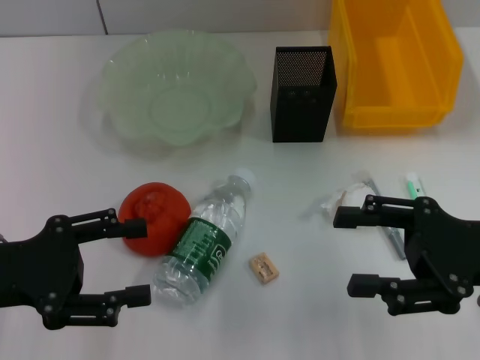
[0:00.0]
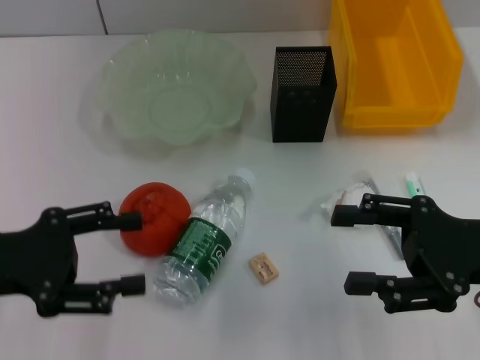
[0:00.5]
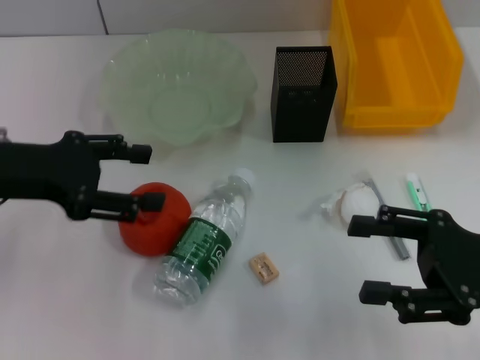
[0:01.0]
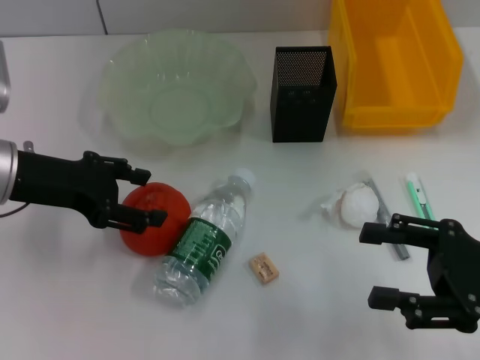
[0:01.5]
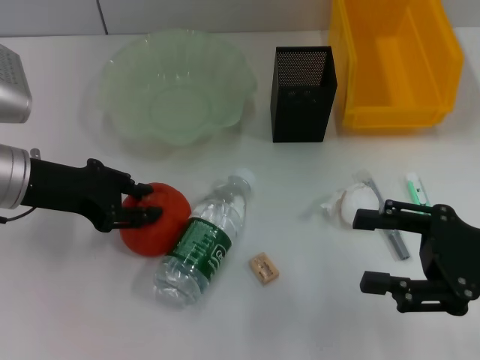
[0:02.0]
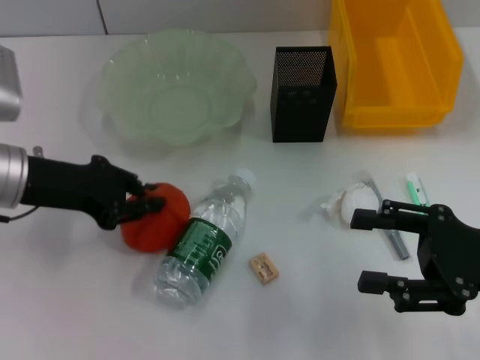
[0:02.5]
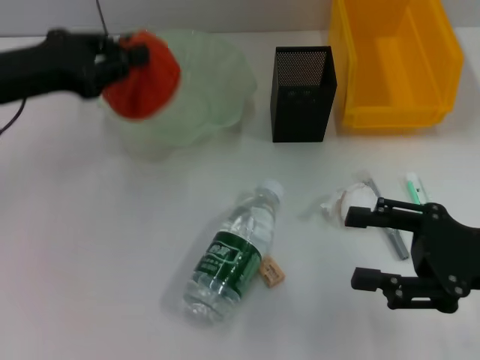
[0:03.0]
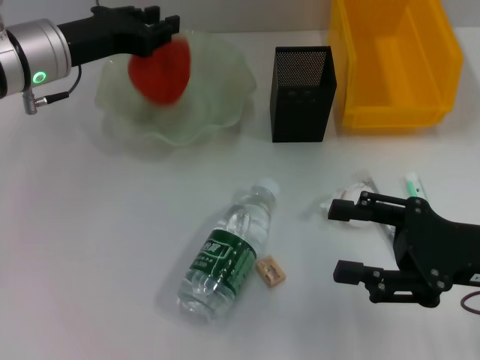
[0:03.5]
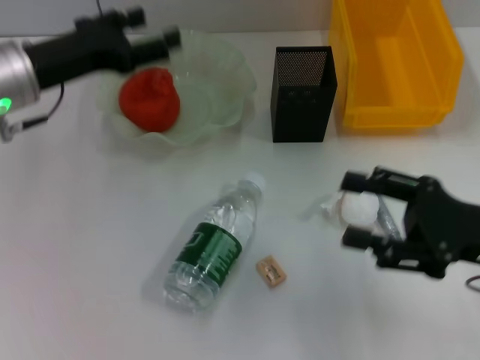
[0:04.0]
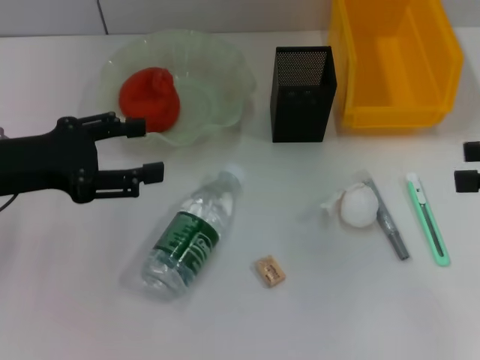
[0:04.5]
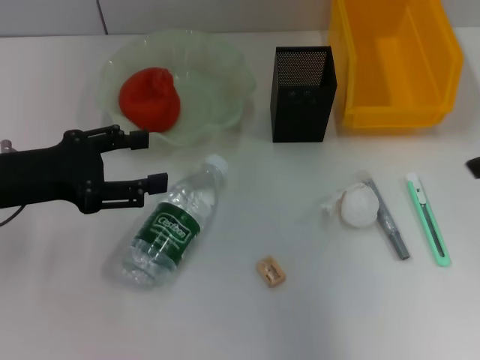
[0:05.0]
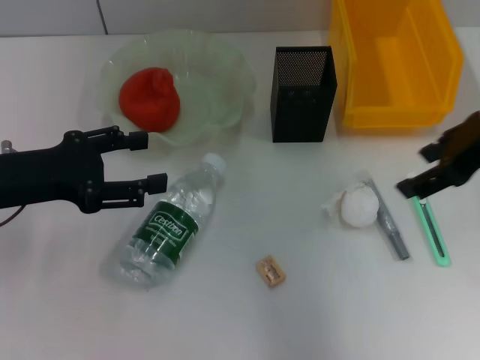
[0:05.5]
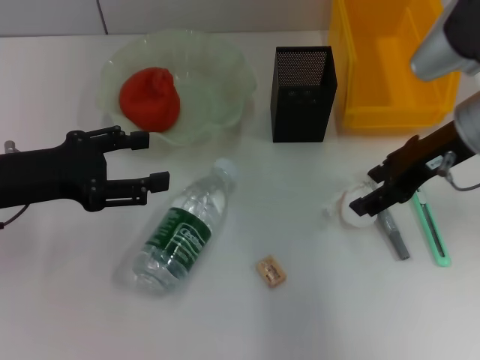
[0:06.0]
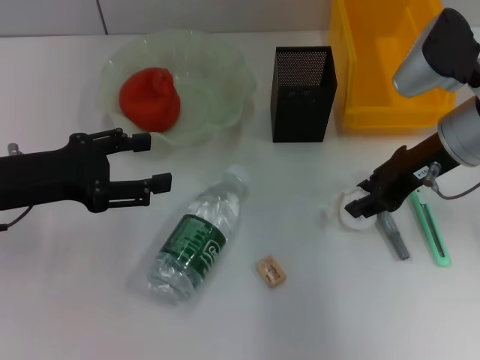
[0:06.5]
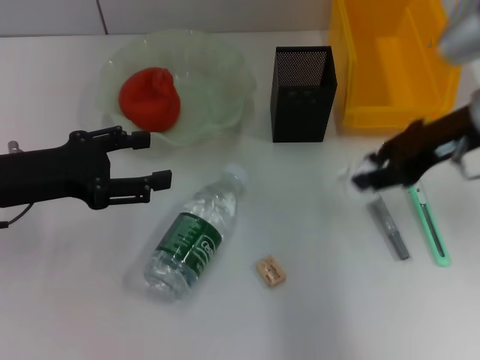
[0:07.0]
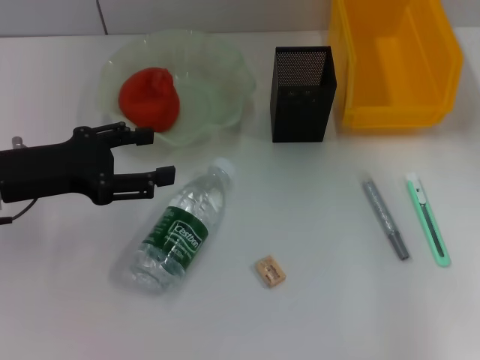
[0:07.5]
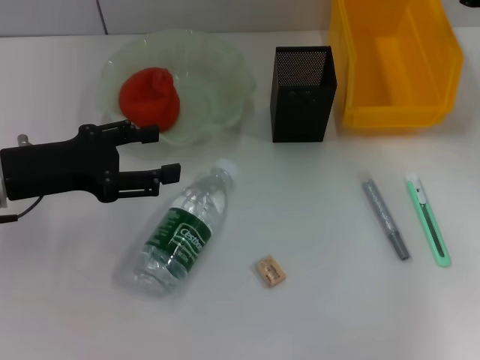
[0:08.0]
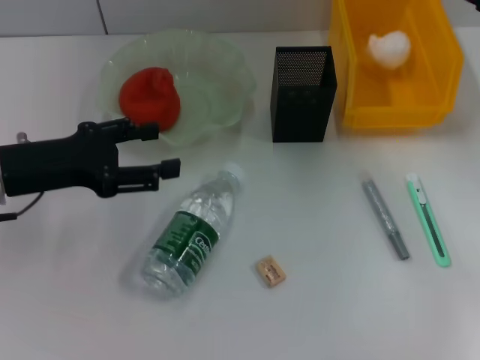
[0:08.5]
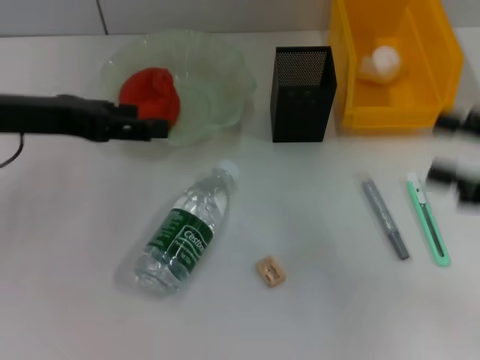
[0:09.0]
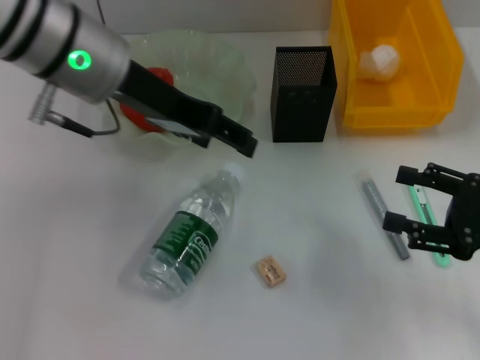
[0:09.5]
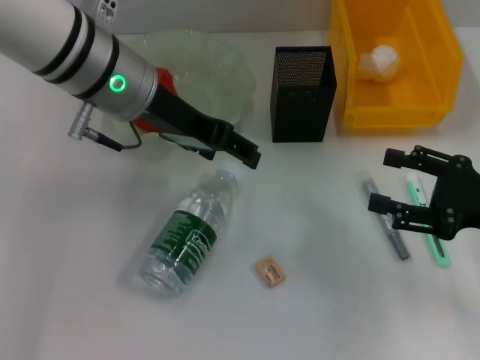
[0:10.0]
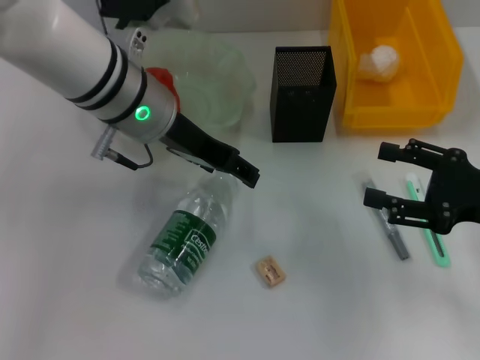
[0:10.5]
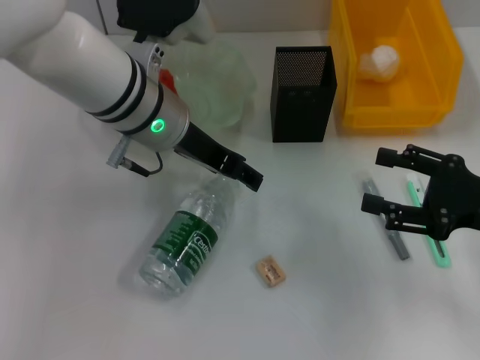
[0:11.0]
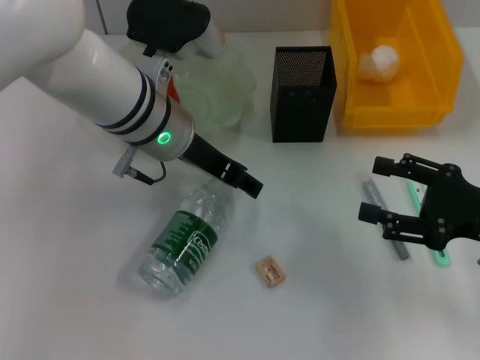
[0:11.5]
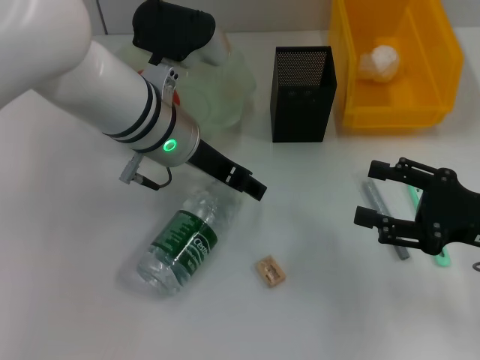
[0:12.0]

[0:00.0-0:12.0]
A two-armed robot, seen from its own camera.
Step, 0.0 to 2.0 s: Grab the orange with the left hand.
Step, 2.5 to 3.5 s: Place the orange into the fruit bowl with the left hand.
Step, 4.0 to 6.5 s: Grab the paper ball with the right hand.
Step, 7.0 to 9.0 s: Place the paper ball into the trash can with the right hand.
0.0 to 2.0 s: The left gripper heads forward, covering about 10 cm, and closes its fingers.
2.0 to 4.0 s: The left gripper closes and opens again.
4.0 to 6.0 s: The left gripper goes some 10 cm backward. Meanwhile the right gripper shifts about 15 cm forward, upward and to the left.
6.0 to 8.0 s: The right gripper goes roughly 10 cm to the right, and closes its fingers.
8.0 to 10.0 s: The right gripper travels backward and downward by some 15 cm, and opens up. Meanwhile the left gripper heads to the right, upward and forward, covering roughly 20 cm.
10.0 to 12.0 s: The left gripper is displaced downward by roughly 5 cm.

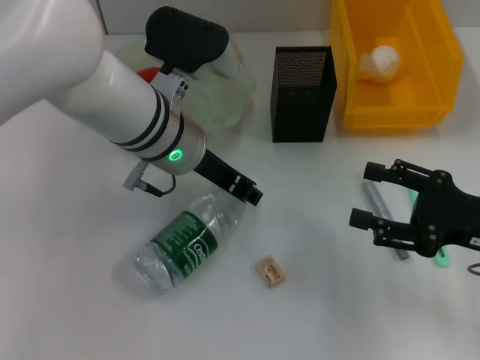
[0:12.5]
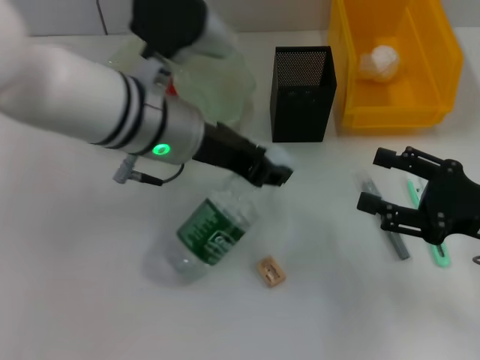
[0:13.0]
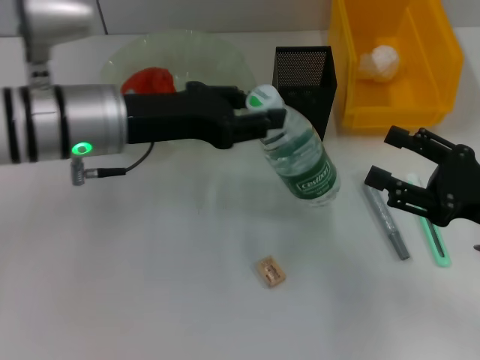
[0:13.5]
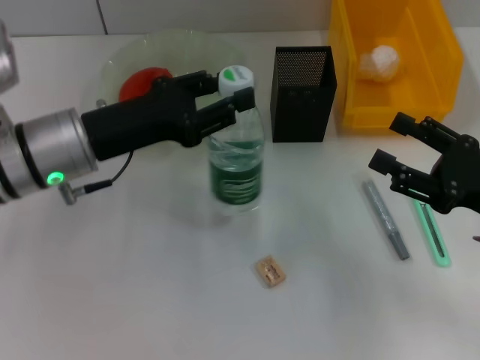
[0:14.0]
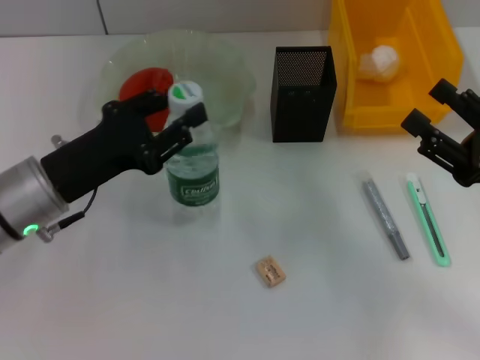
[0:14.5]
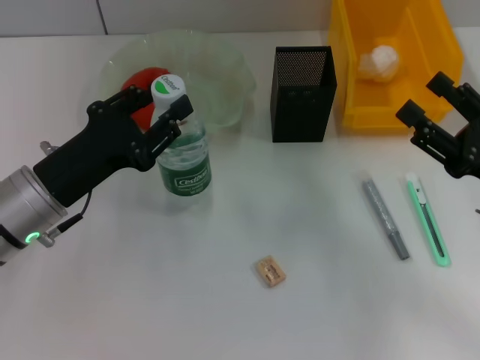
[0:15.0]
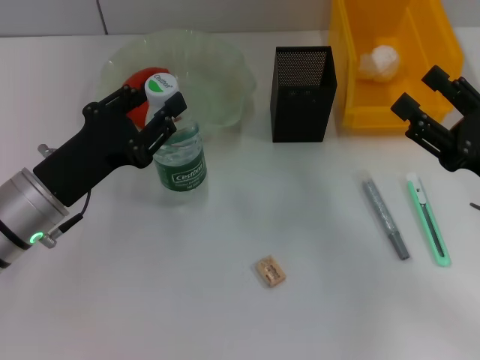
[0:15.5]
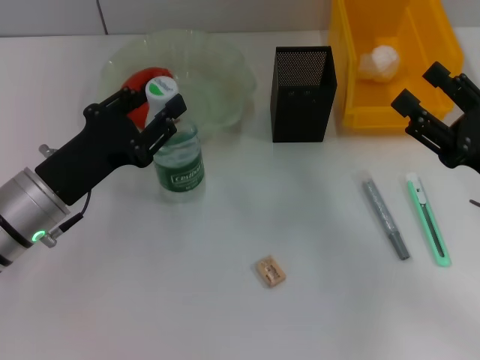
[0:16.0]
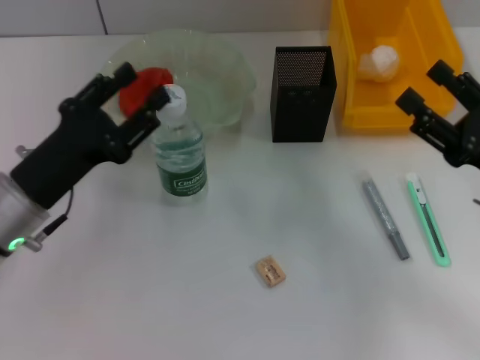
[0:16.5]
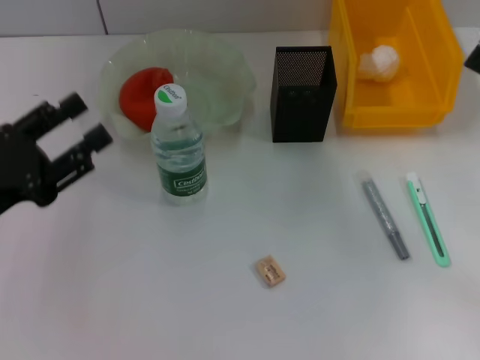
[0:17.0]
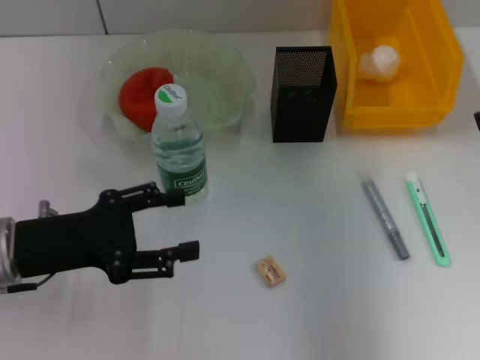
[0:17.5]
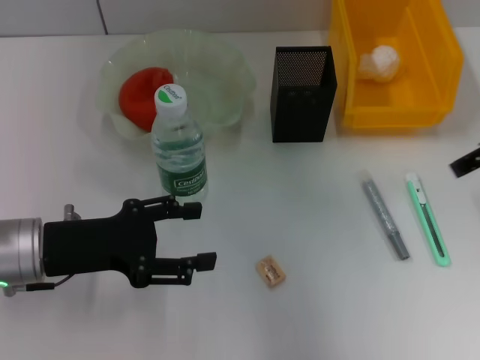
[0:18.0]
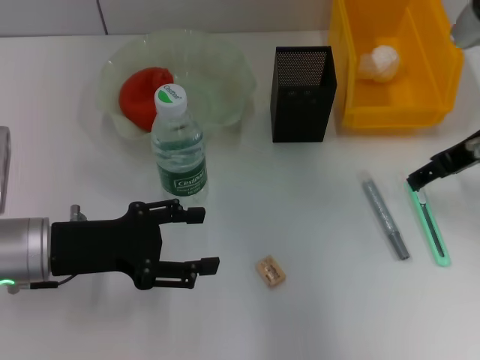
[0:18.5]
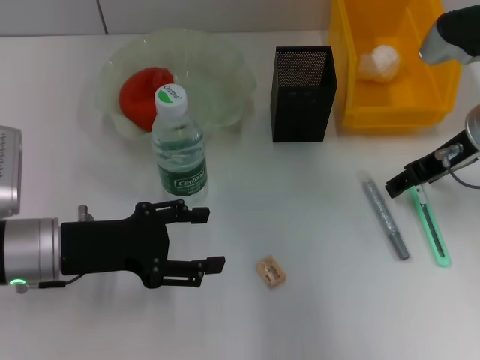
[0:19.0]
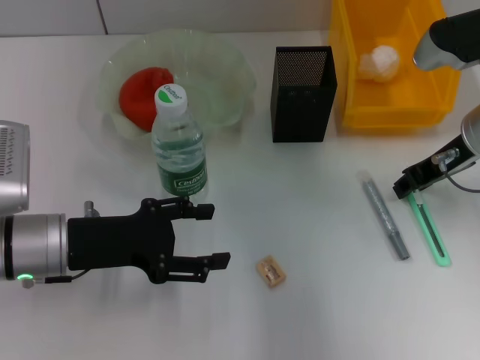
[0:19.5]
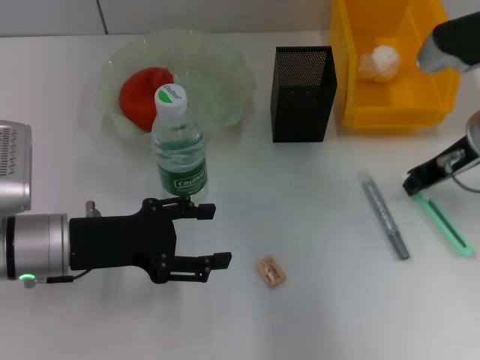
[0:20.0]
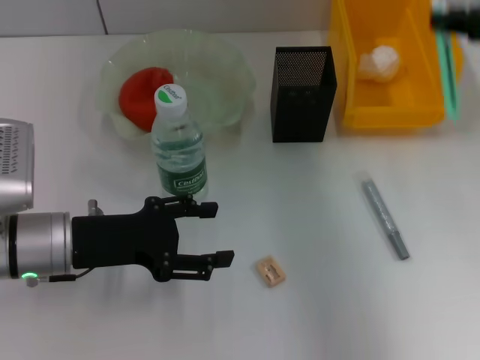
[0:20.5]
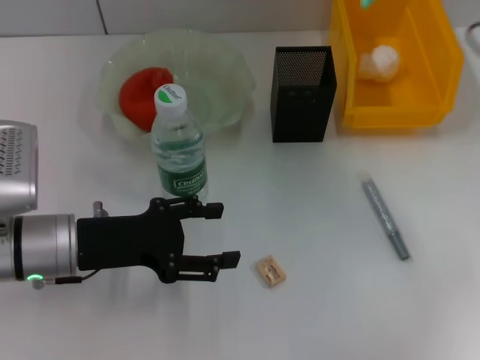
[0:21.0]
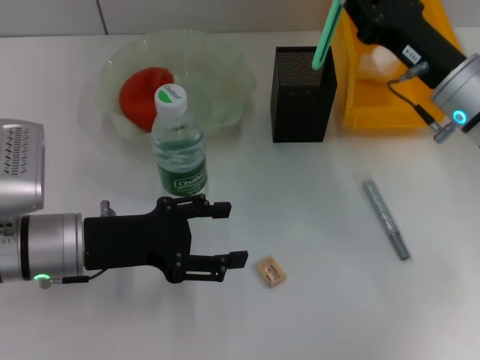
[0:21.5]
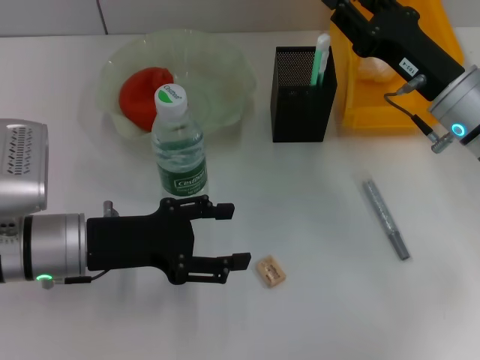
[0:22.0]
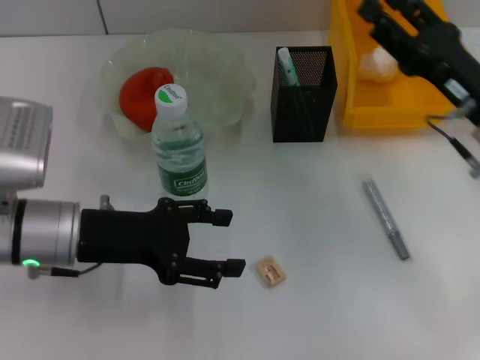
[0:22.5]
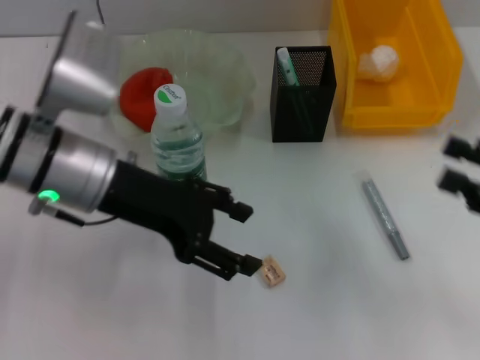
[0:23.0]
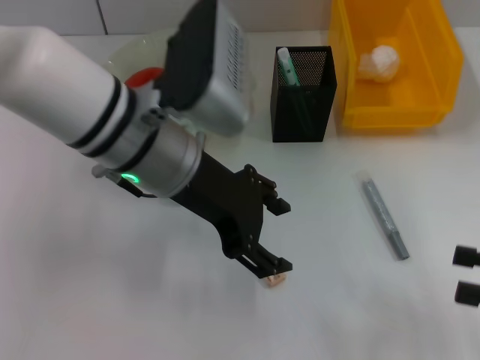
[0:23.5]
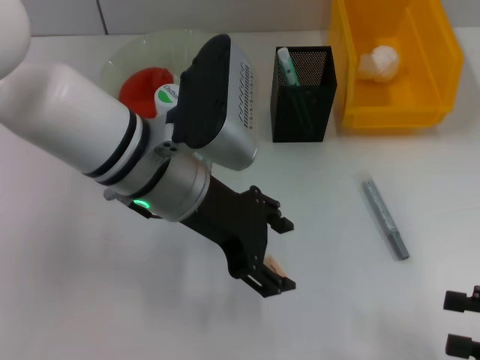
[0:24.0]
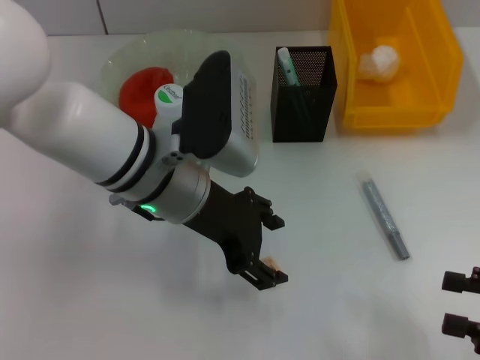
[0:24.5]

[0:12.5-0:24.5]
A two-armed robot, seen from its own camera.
Step, 12.5 to 16.0 s: Place the water bottle on the table with the left hand.
Step, 16.5 to 19.5 s: Grab the blue utility knife with the right hand.
Step, 20.0 to 22.0 s: Place the blue utility knife into the pen holder with the right hand.
12.5 to 14.5 s: The left gripper shifts about 15 cm to the left and backward.
14.5 to 16.5 s: There are only small adjustments of the grippers.
16.5 to 18.5 s: The right gripper heads forward and upward, covering some 15 cm.
18.5 to 20.5 s: The right gripper travels upward by about 10 cm, and closes.
20.5 to 22.5 s: The right gripper heads downward, covering some 15 cm, and opens up.
22.5 to 24.5 s: The left gripper heads to the right, covering about 10 cm, while the right gripper shifts some 20 cm backward and to the right.

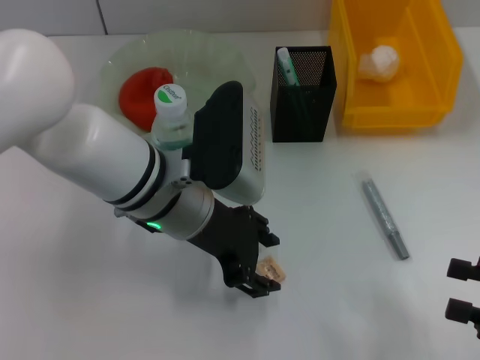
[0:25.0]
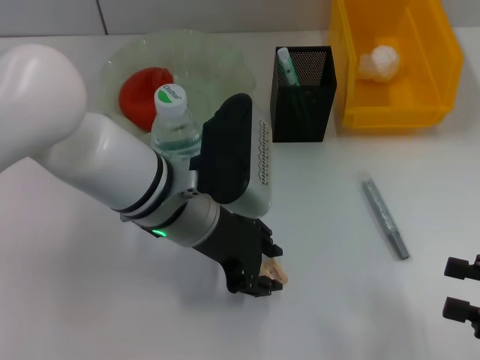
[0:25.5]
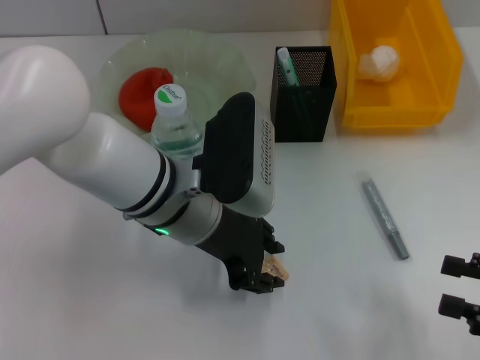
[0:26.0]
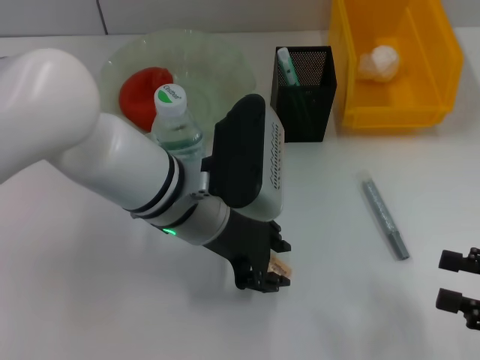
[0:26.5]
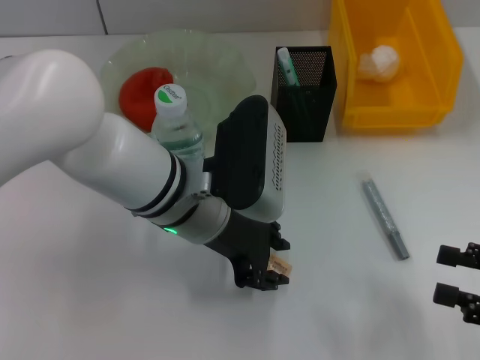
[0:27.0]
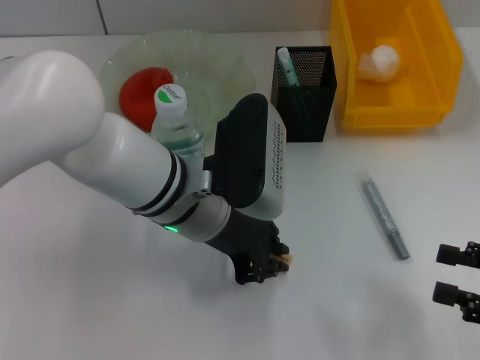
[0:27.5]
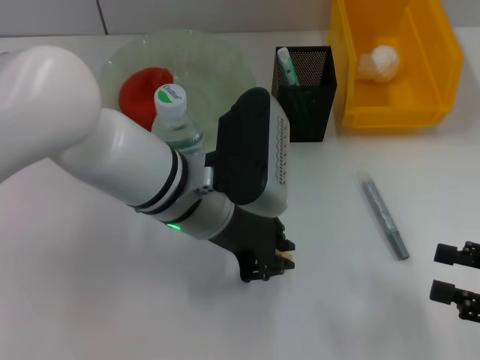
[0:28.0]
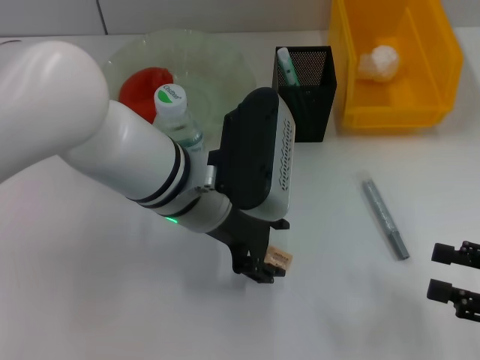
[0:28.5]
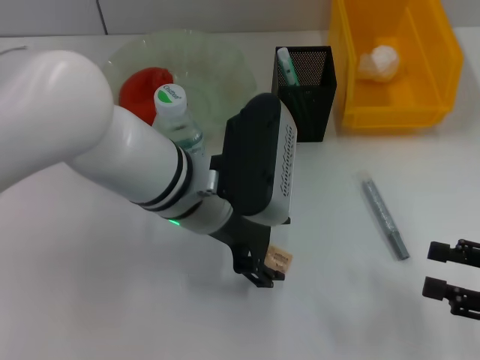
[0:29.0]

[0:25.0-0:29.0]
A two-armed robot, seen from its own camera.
25.0 to 27.0 s: The left gripper closes its fingers.
27.0 to 29.0 s: The left gripper opens its fingers.
